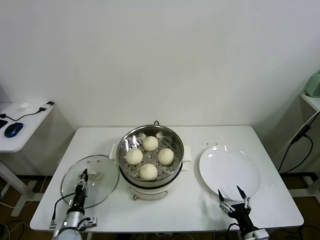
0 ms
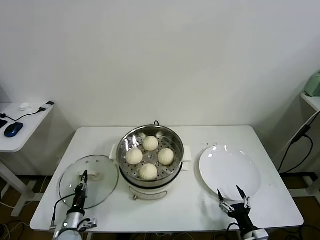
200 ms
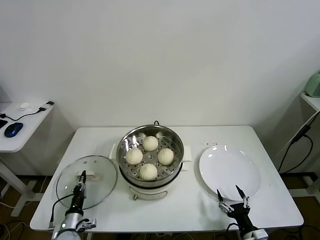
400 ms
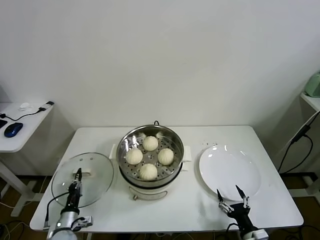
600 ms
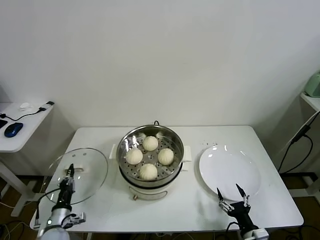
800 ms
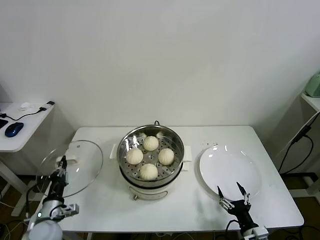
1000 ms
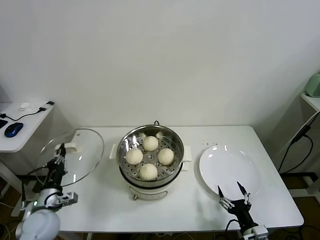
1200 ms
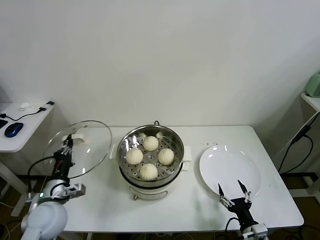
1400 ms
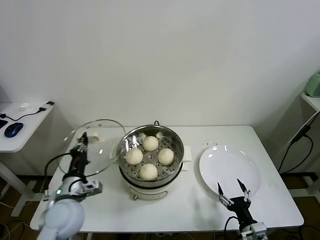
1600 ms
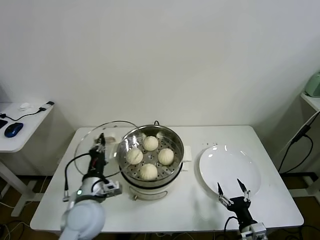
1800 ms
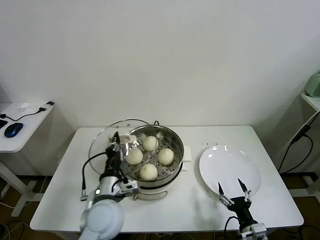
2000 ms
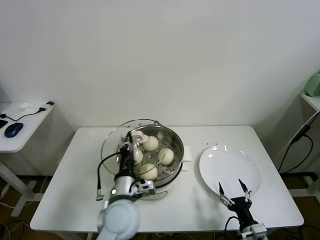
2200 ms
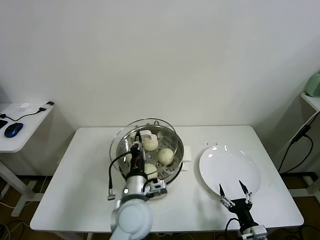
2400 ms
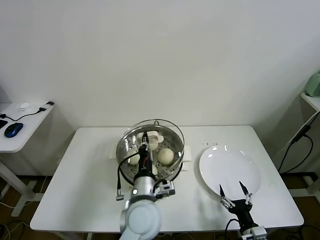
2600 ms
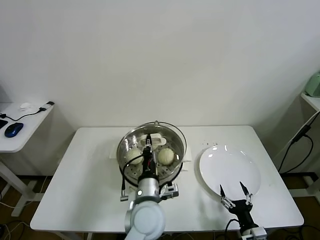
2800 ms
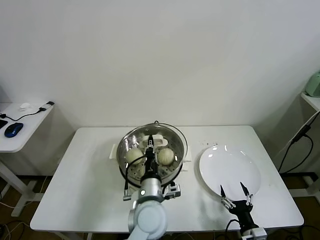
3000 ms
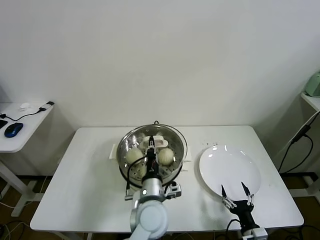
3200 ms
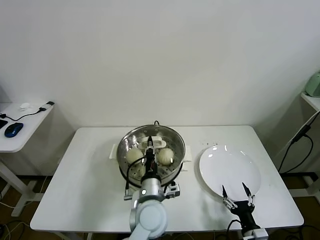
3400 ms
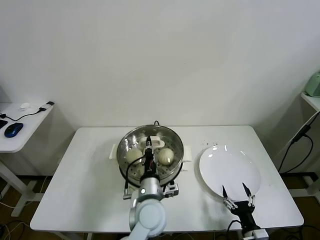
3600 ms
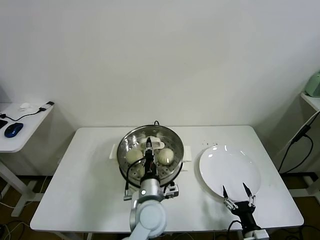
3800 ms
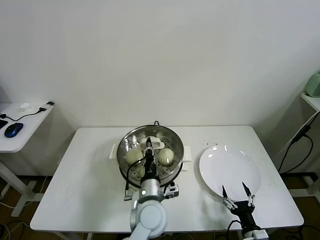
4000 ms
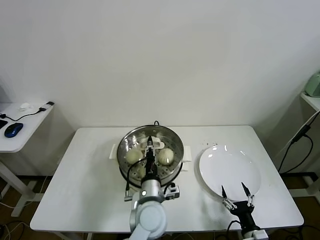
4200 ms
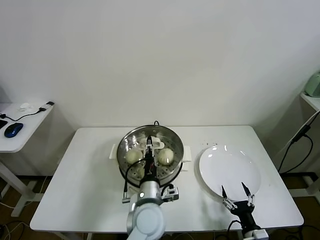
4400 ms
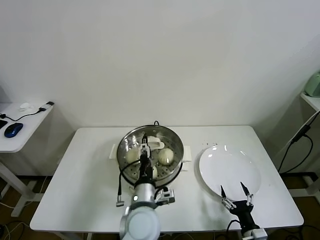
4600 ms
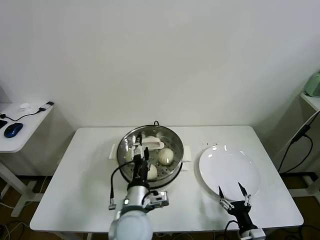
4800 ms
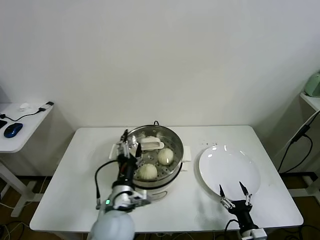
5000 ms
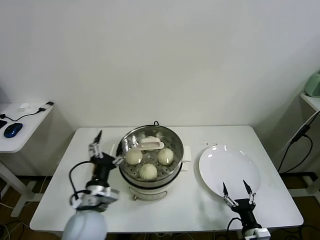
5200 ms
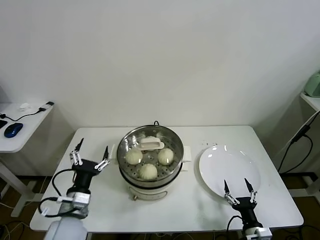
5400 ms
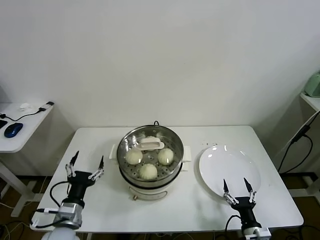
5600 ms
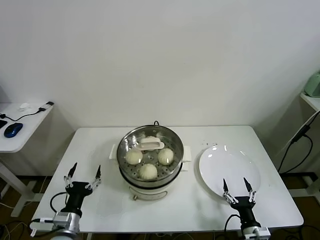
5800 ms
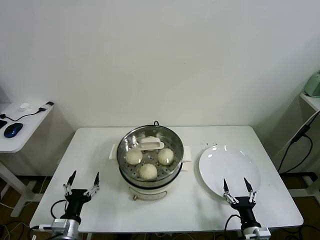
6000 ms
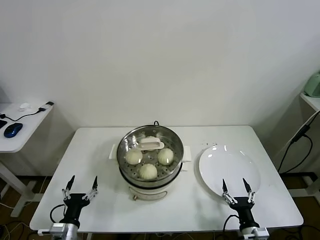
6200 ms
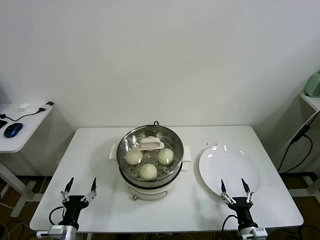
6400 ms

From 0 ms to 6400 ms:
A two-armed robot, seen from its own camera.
Task of the whole recording: take steamed baozi put them in steamer.
Step, from 400 ms to 4600 ms: Place the pot lid on the steamer with left gripper.
From 0 ms to 1600 ms: The left gripper heads upward, covering roughly 25 cm.
From 1600 ms to 3200 ms: The left gripper is displaced to the right by some 25 cm.
From 3200 ms to 4800 ms: The left gripper changes place by roughly 5 cm, and opens its fingers.
From 4800 ms to 6400 ms: The left gripper travels to the left and downward by approximately 30 cm.

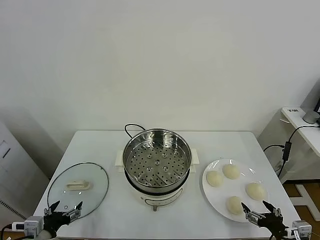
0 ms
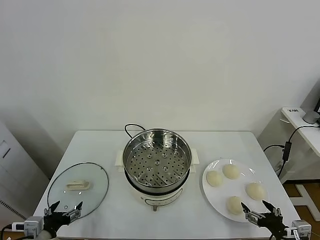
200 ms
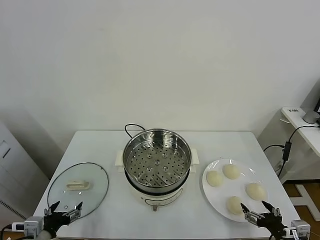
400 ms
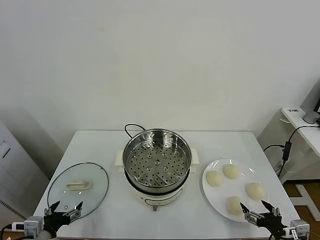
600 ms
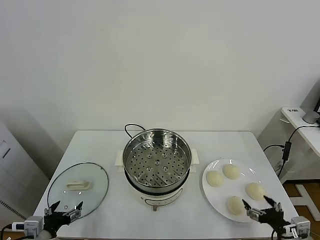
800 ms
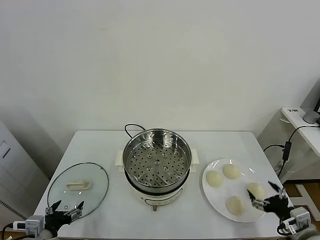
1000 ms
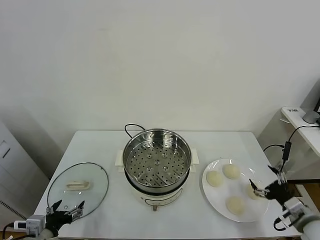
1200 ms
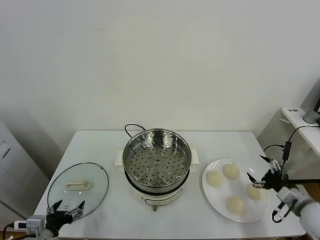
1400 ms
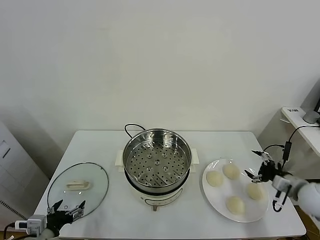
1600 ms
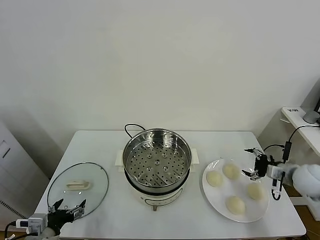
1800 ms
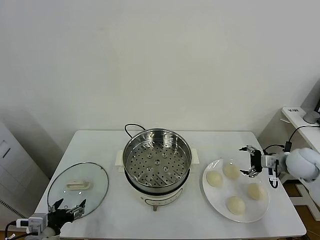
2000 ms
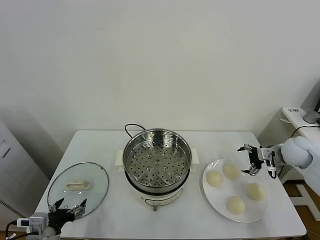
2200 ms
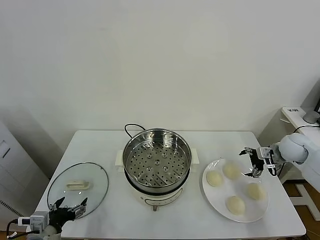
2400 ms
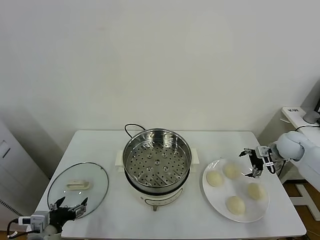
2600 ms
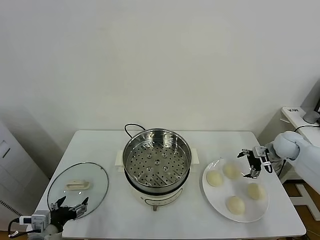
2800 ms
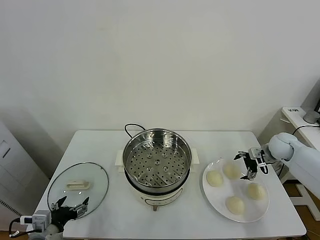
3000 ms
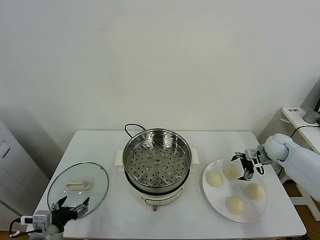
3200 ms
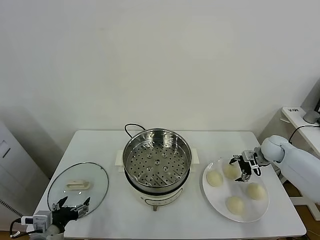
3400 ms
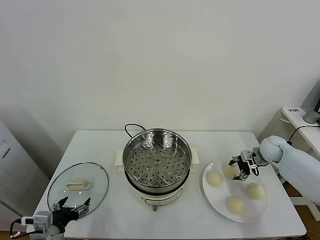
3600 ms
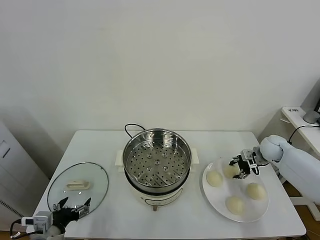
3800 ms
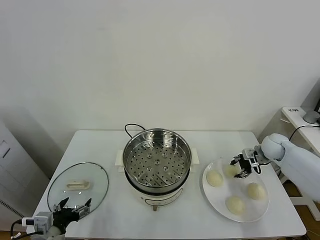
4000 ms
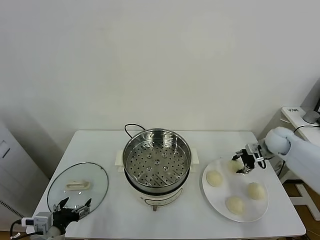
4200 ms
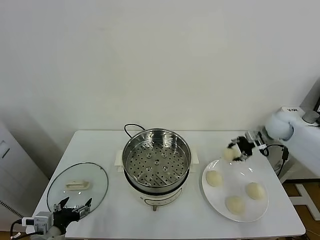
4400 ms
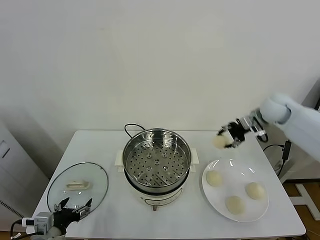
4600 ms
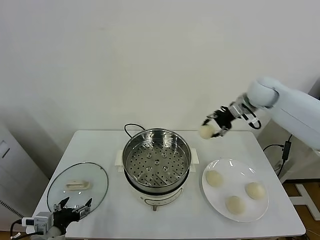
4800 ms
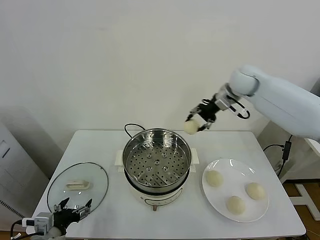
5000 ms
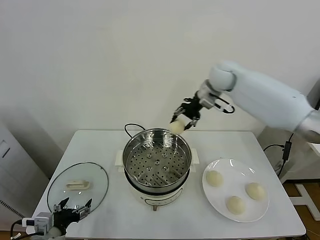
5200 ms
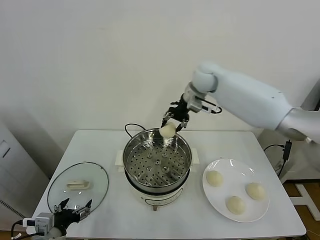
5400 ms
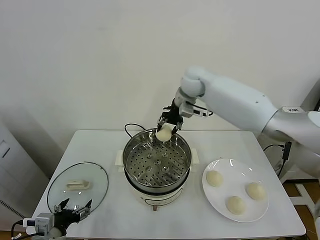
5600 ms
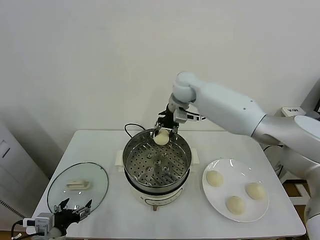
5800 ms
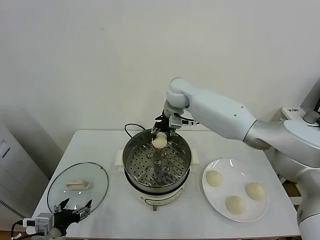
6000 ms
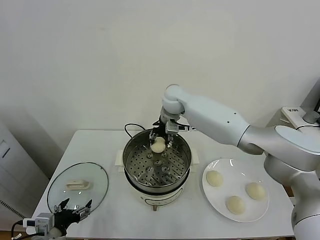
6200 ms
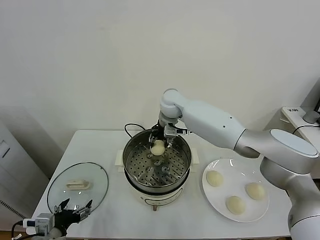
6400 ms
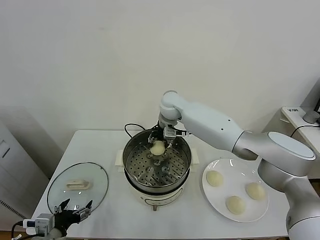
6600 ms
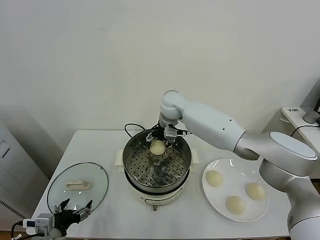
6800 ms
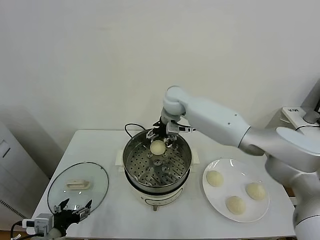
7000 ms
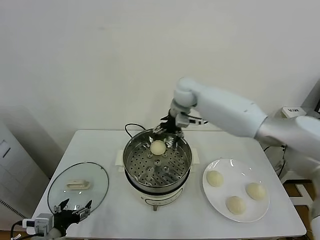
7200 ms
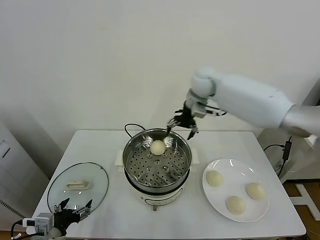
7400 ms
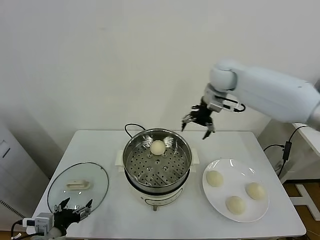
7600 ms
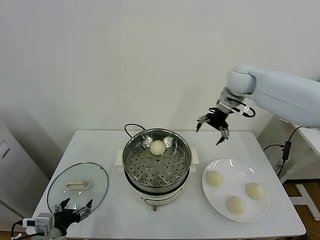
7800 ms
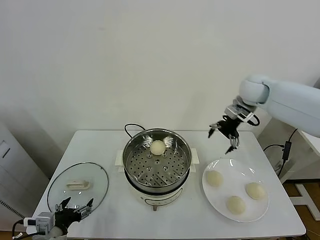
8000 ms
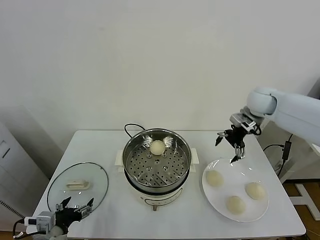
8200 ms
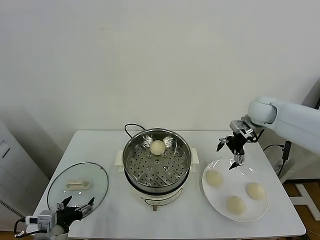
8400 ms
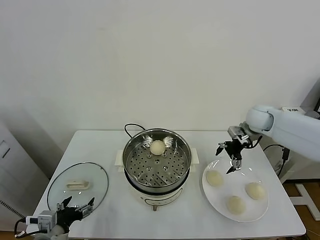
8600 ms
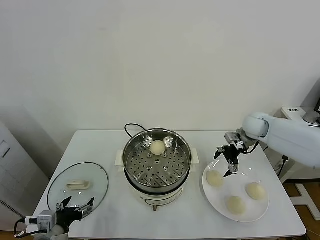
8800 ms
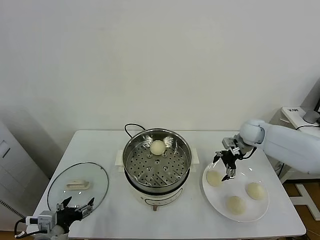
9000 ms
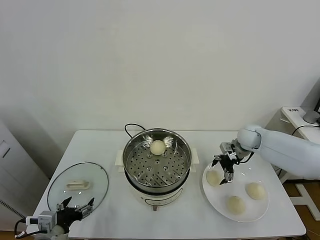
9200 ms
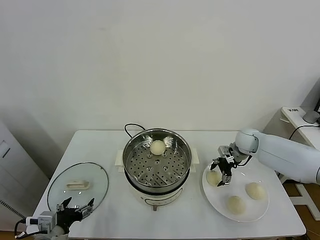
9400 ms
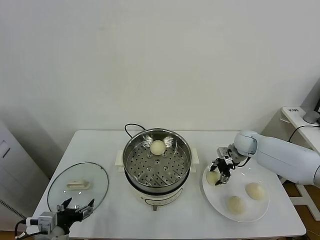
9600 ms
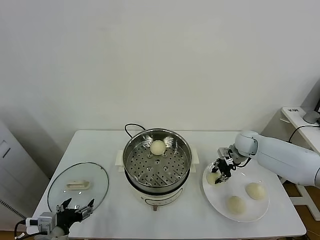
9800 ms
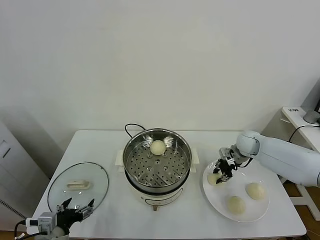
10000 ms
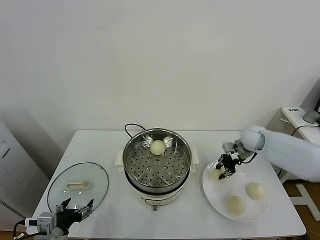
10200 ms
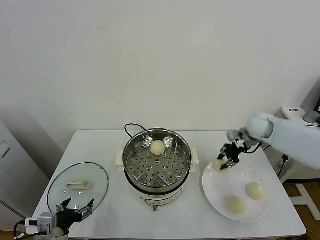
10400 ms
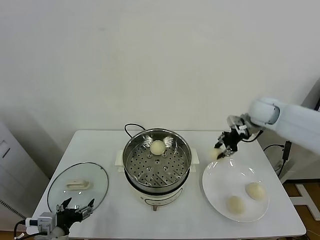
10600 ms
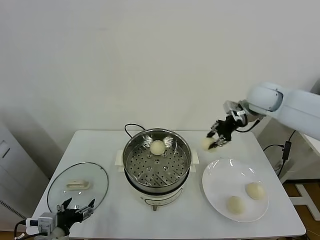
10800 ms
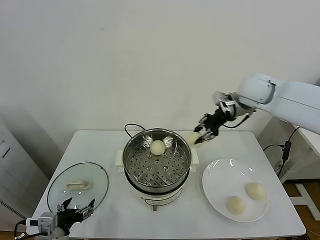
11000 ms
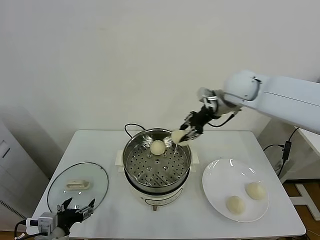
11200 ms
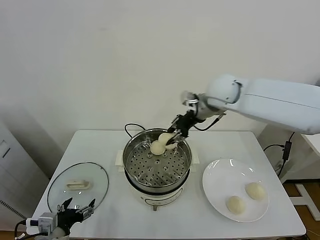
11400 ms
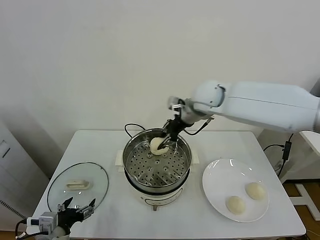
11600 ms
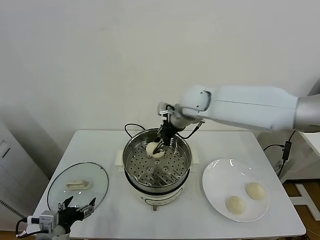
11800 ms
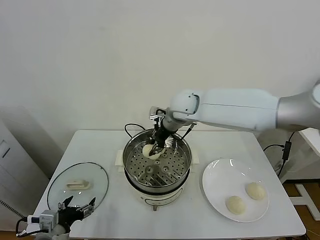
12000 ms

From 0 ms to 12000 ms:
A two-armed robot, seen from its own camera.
Task of the whole recording: take steamed baozi put them in steamer.
Step, from 0 ms to 3800 ms: Grasp the baozi in the plate with right gripper.
Step, from 4000 ms to 7000 ms: Place the baozi on the steamer with right gripper.
Step, from 7200 ms to 9600 ms: Grasp the baozi in the plate with right gripper.
From 1600 ms to 3000 ms: The right gripper moves forward, some 15 cm.
From 3000 ms to 4400 ms: The right gripper moves upward, some 15 cm, and closes up.
From 4400 ms to 6000 ms: The right gripper is displaced to the left by about 35 cm.
From 6000 ms to 7600 ms: The right gripper goes some 20 cm to the right and upward, and opens its fingers.
From 7600 ms to 9000 ms: The right gripper moves downward and to the right, roughly 25 cm.
From 9000 ms to 10400 ms: The right gripper shifts some 5 cm upward, and closes up.
From 10400 ms to 12000 ms: The right gripper heads to the left, covering roughly 30 cm.

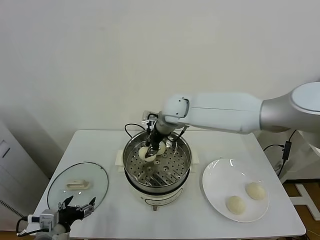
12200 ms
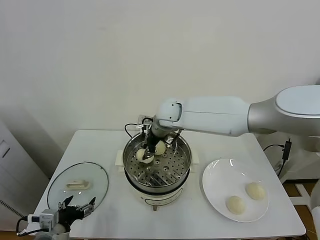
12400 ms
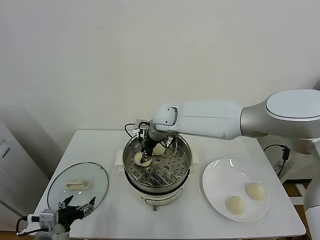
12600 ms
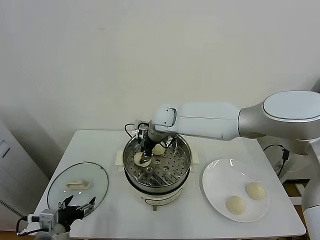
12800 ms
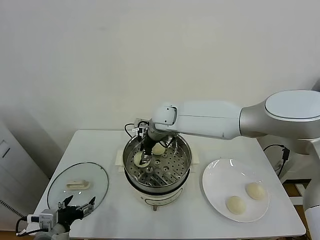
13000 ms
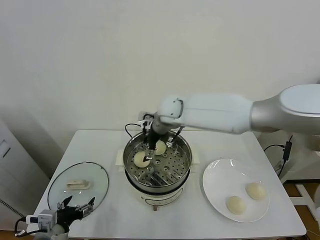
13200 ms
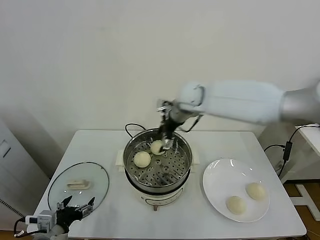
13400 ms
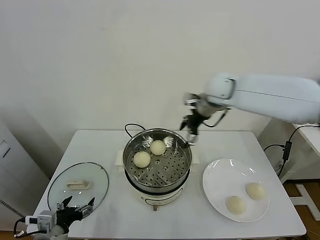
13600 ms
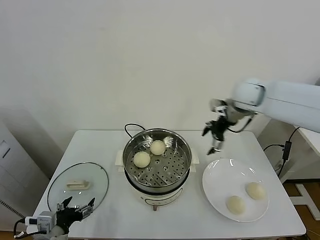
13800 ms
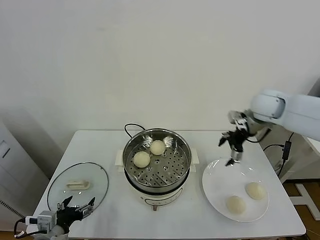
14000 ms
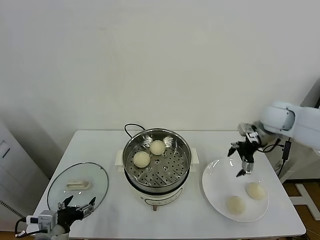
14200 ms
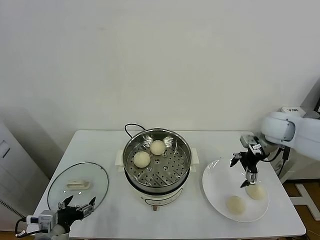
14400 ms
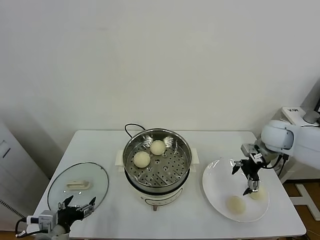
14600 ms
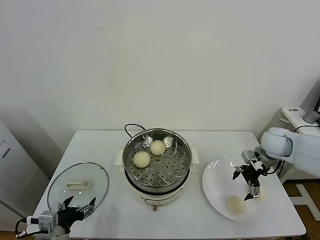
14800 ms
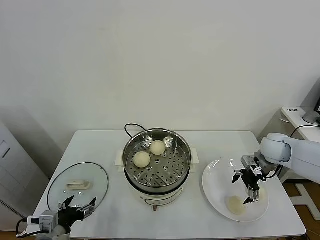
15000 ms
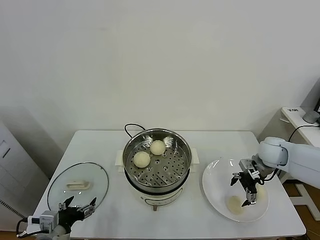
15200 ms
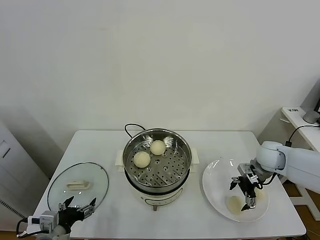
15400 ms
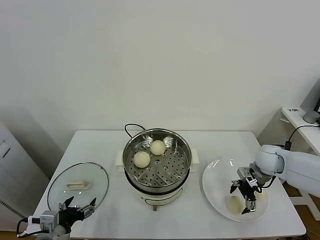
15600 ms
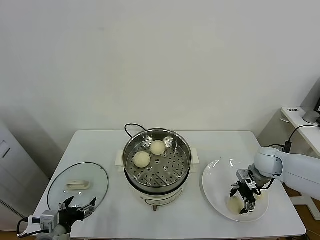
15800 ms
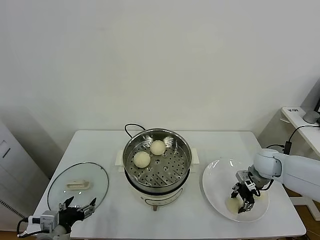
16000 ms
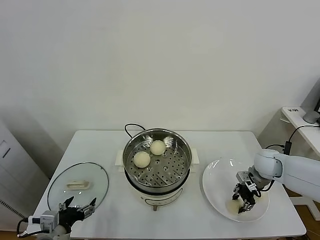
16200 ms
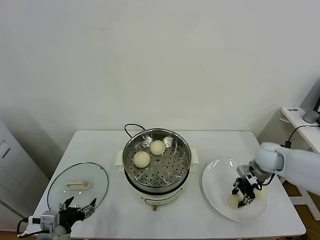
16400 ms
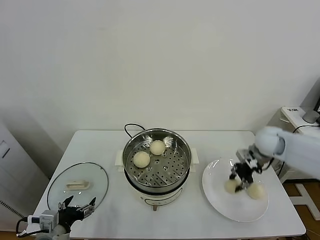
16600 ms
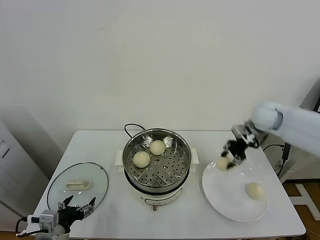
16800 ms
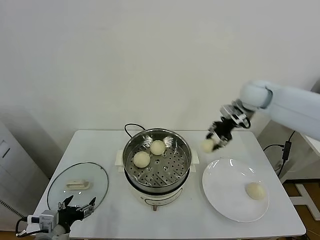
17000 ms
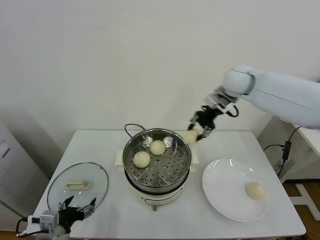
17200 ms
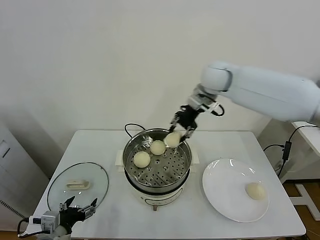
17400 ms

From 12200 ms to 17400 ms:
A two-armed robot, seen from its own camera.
Task of the whole recording: take steamed baozi put them in steamer.
Step, from 13400 ms to 16000 ms: Grasp the baozi in the plate with right gripper.
From 12200 ms to 14000 ms: The right gripper is displaced to the right by approximately 30 cm, and opens up.
From 14000 ms to 15600 ms: The right gripper moves downward, about 20 cm.
From 15600 ms to 17400 ms: The right gripper goes some 35 cm upward, to the left and forward, and closes up.
